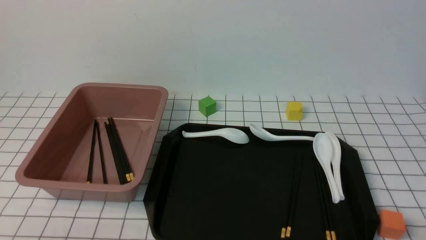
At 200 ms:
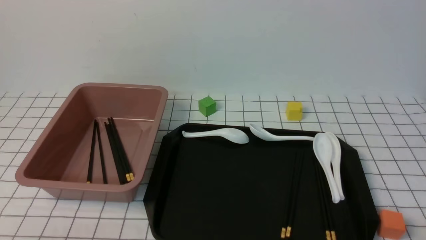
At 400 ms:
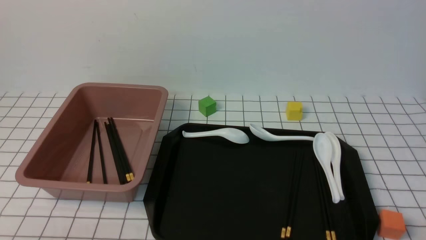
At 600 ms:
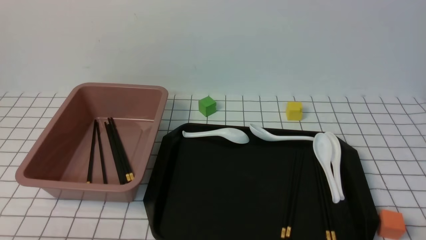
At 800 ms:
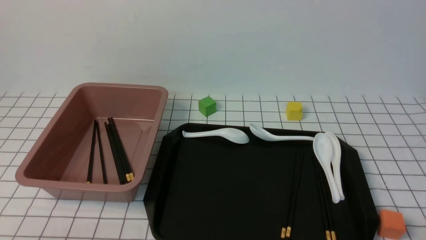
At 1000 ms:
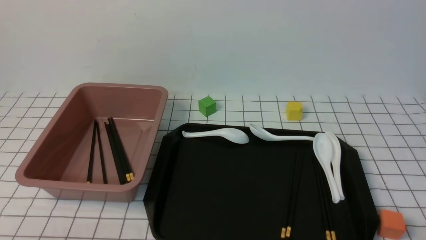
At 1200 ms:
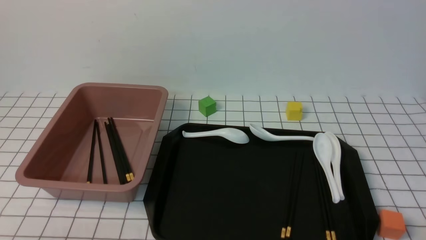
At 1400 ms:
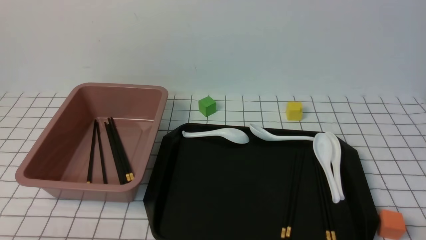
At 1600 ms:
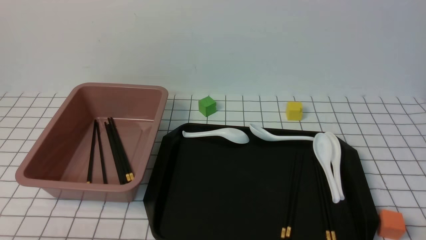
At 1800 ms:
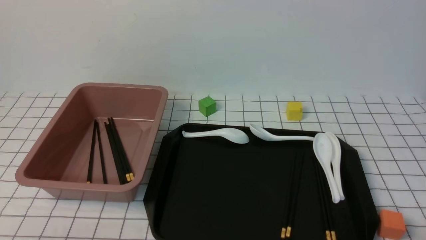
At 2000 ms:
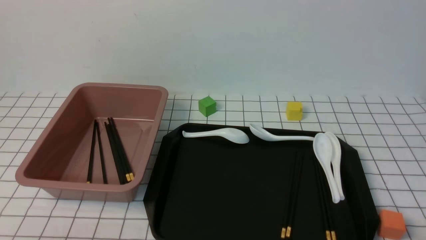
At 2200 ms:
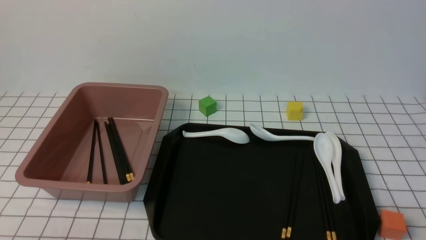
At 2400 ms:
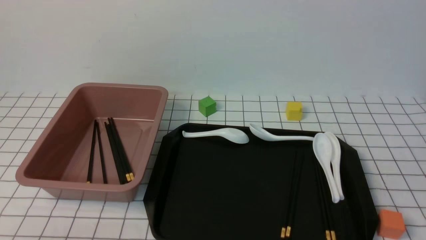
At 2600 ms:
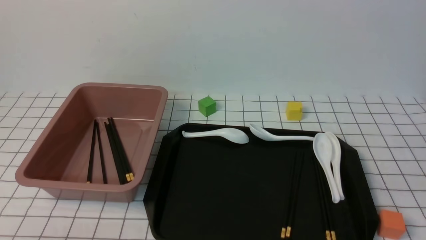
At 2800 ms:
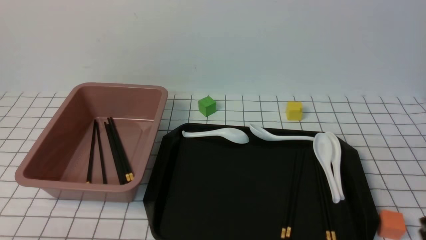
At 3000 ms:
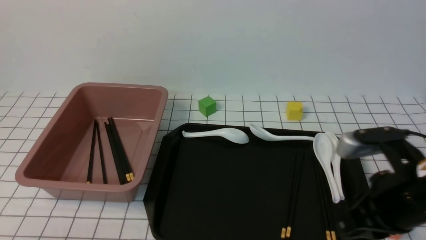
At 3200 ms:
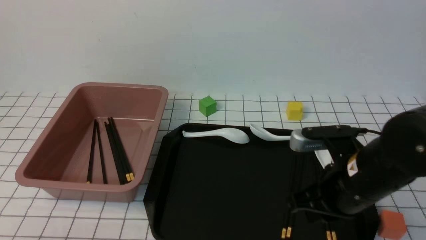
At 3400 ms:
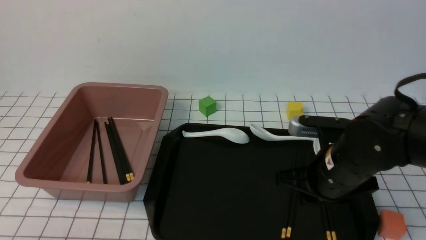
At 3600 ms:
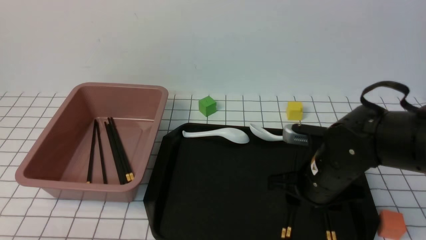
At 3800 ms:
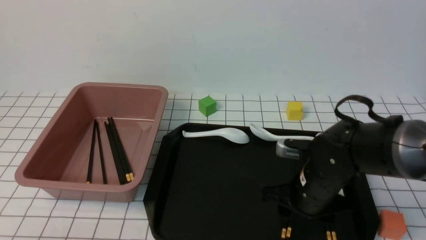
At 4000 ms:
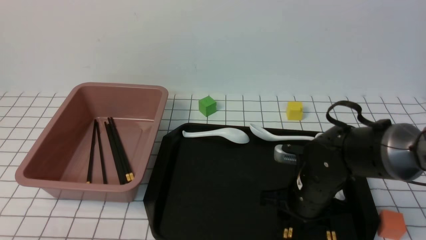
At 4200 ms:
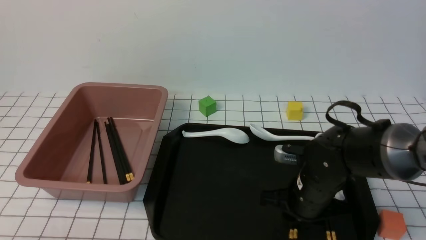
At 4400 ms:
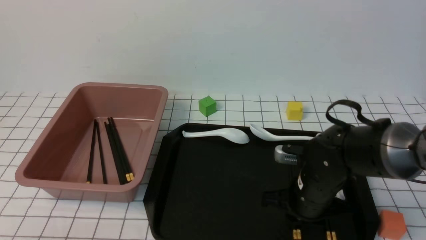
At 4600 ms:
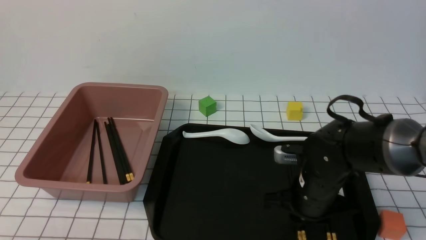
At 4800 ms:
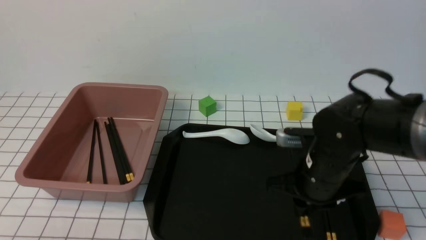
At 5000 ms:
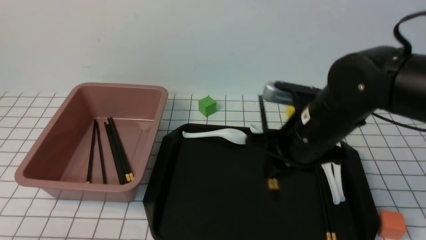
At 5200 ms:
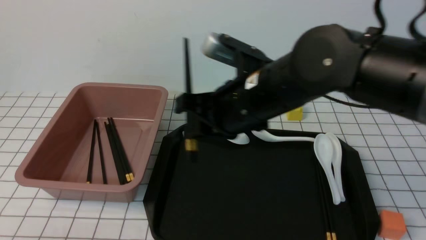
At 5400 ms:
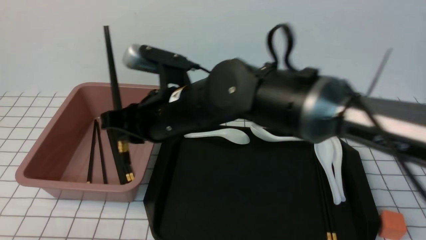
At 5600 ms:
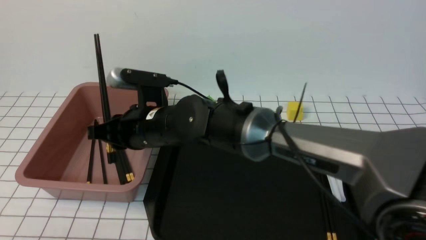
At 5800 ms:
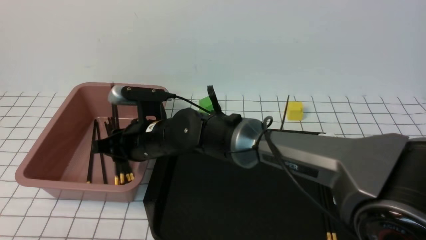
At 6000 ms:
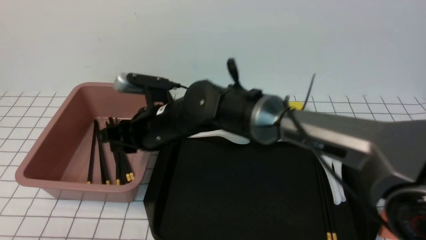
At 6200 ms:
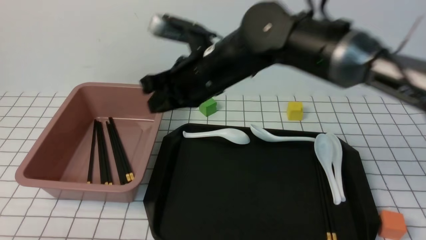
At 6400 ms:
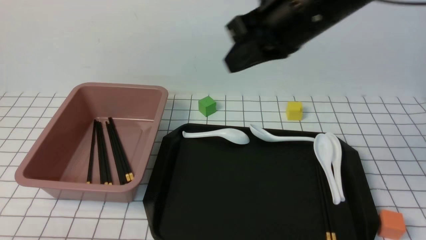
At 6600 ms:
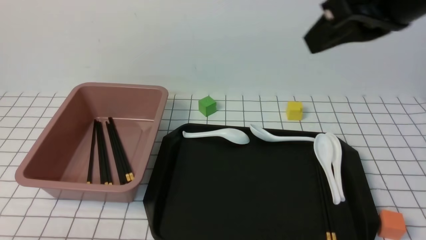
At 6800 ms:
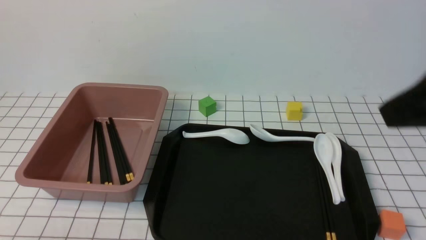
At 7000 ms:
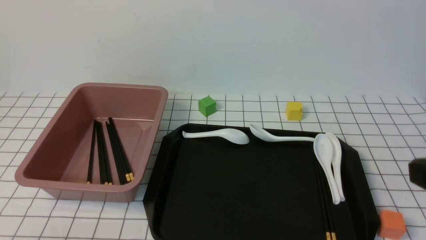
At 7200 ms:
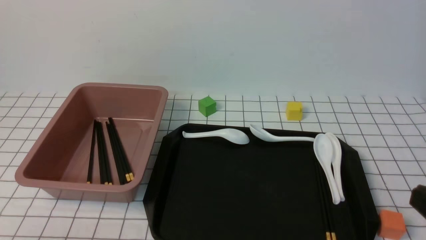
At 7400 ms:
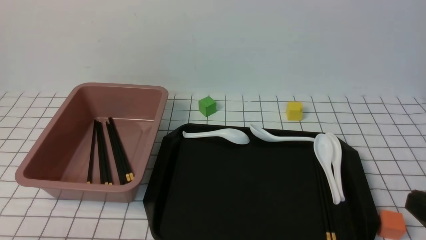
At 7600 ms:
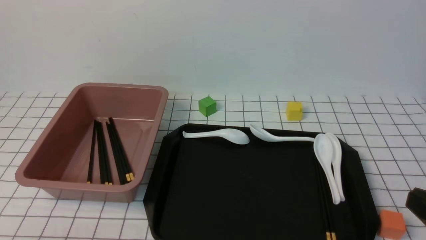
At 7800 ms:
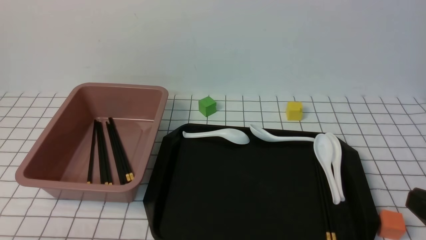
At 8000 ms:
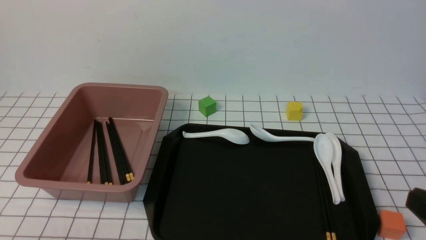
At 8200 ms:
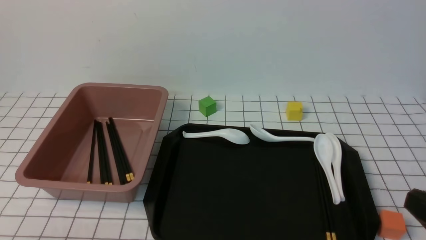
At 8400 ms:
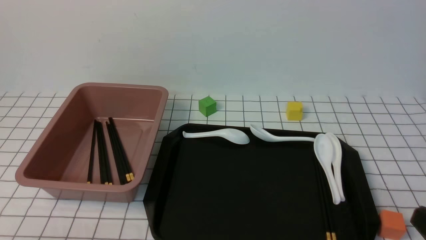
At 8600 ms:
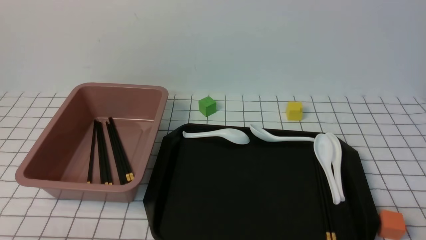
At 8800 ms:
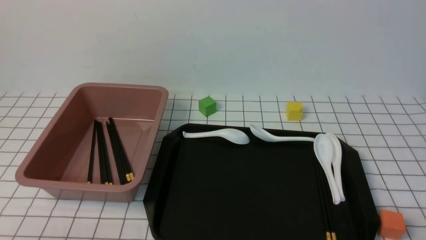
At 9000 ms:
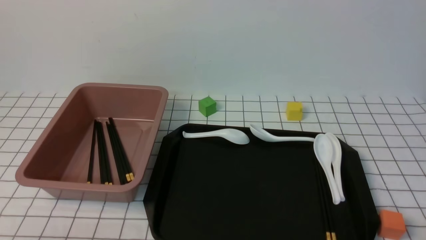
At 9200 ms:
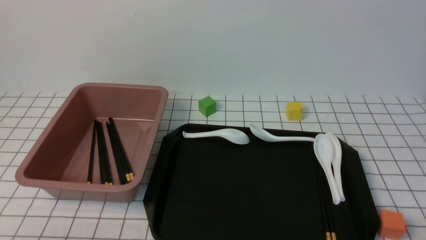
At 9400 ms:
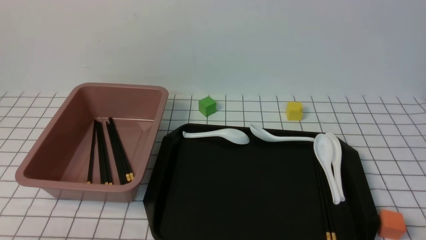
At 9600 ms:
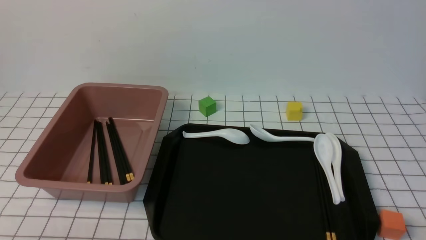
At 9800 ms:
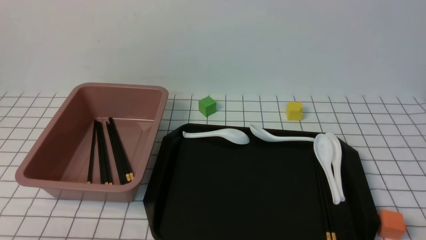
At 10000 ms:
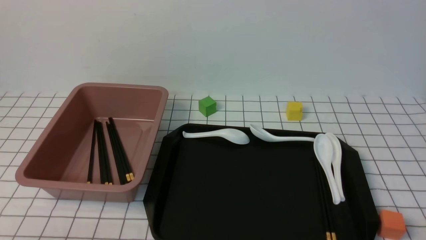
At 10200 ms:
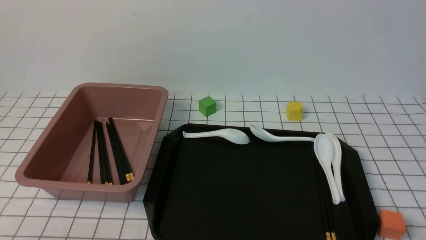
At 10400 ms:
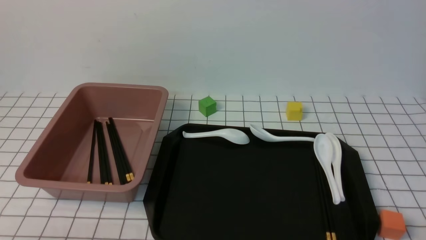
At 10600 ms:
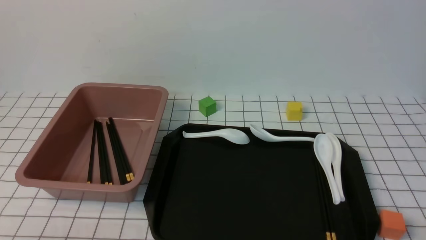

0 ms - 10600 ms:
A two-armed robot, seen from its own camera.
Step, 0 ms - 4600 ms: use the right arm to grab a pair of chopsticks.
Step, 4800 ms - 6200 ms: use the right arm to put the chopsticks into the lunch box.
1600 ms - 3000 ms: The right gripper shifts about 20 cm forward, upward and to the left, and closes up.
3000 ms - 4600 ms: The right gripper shifts approximately 15 cm downward, forward and to the left, and opens and closes again.
4600 ms - 6000 ms: The right gripper heads to the left and upward, covering roughly 20 cm.
6000 ms - 7600 ms: The right gripper moves to the right and backward, roughly 40 cm, and closes its fingers.
9000 ms - 10600 ms: Neither gripper changes place.
